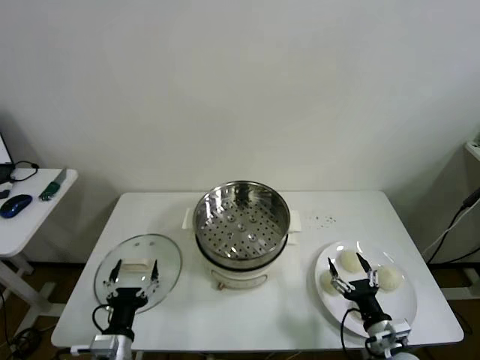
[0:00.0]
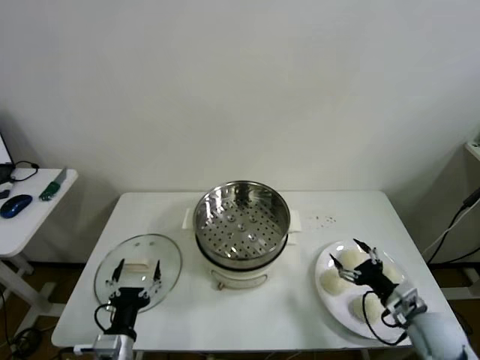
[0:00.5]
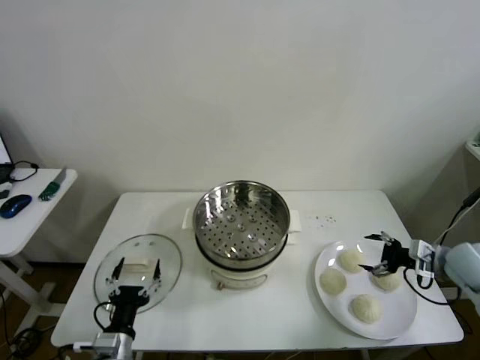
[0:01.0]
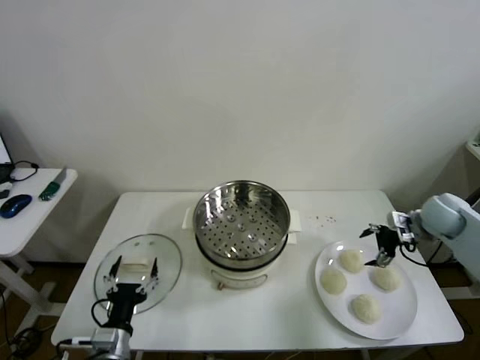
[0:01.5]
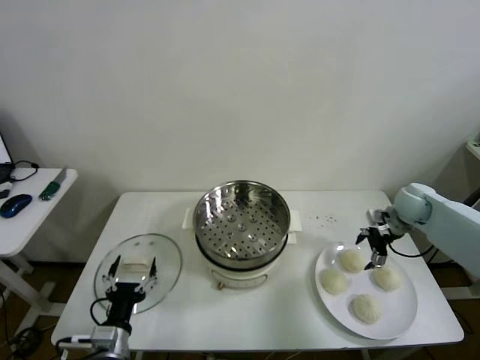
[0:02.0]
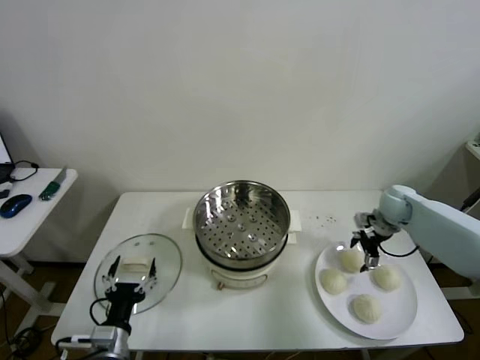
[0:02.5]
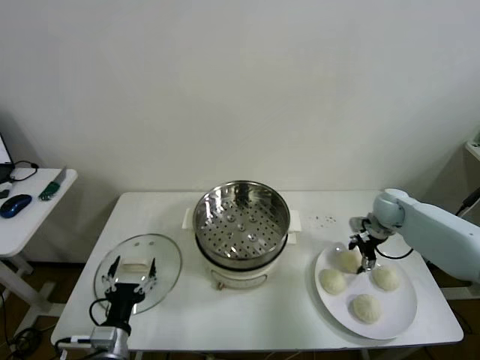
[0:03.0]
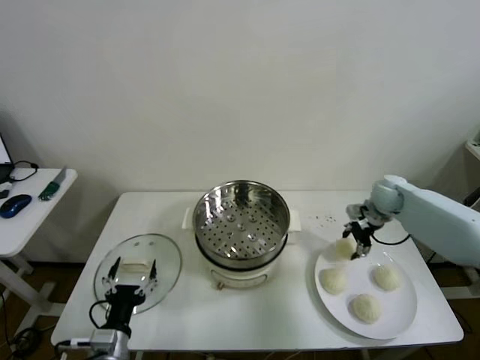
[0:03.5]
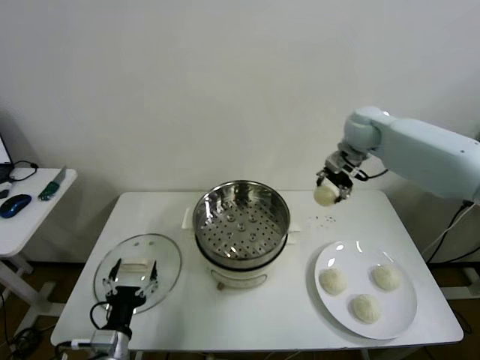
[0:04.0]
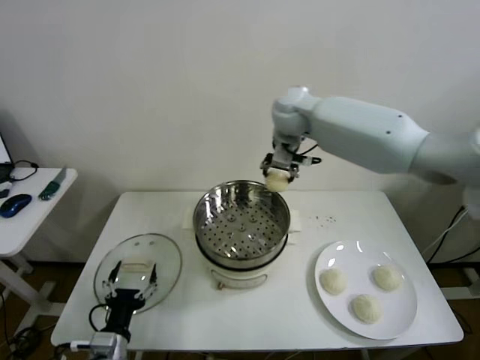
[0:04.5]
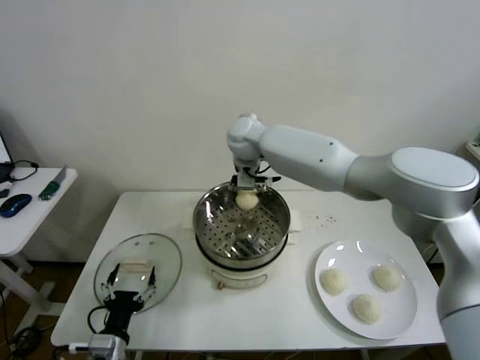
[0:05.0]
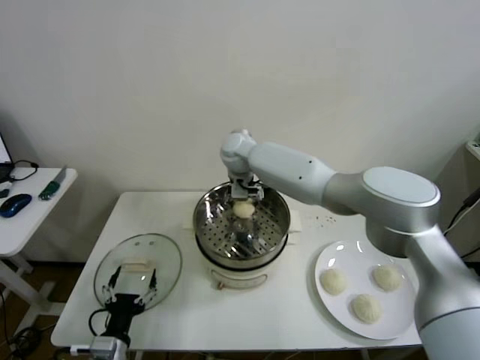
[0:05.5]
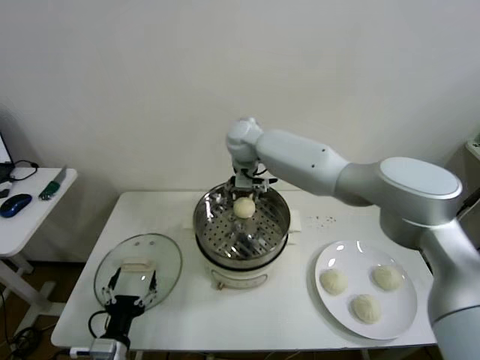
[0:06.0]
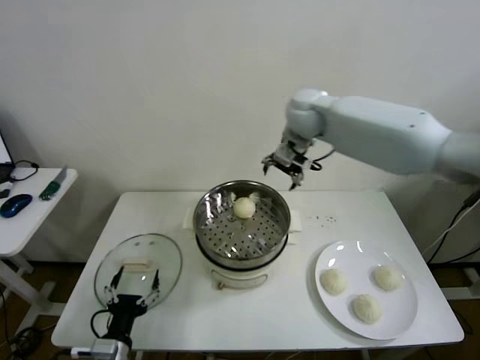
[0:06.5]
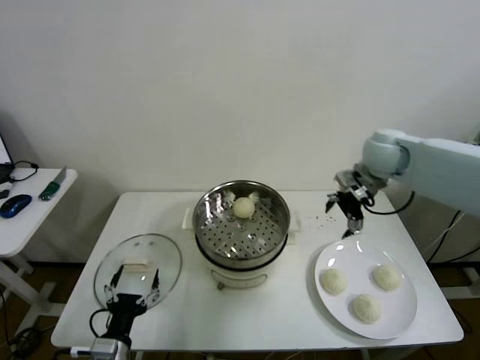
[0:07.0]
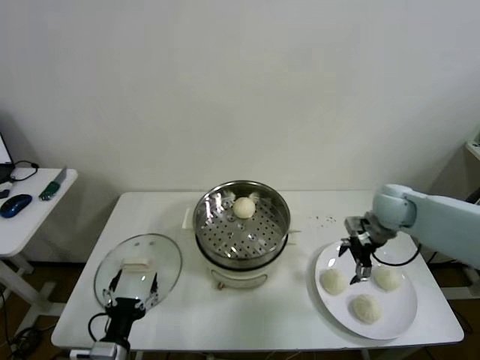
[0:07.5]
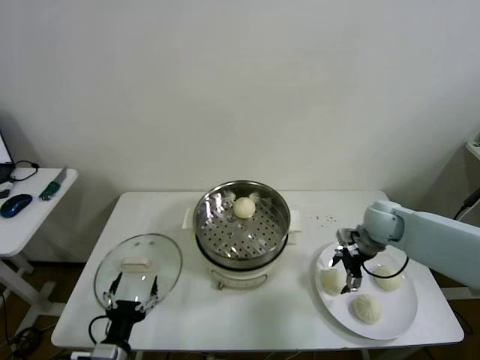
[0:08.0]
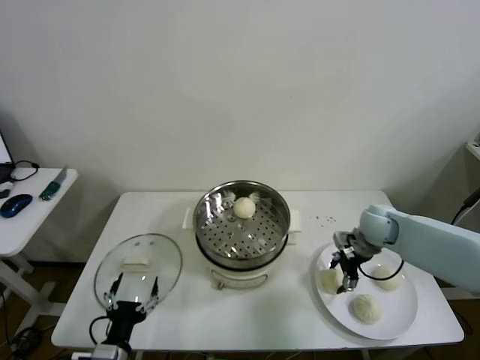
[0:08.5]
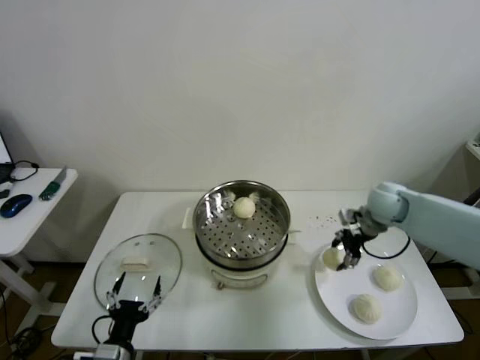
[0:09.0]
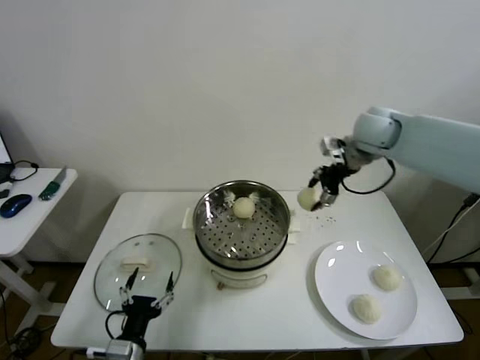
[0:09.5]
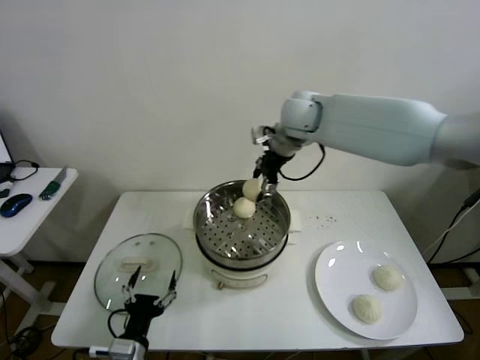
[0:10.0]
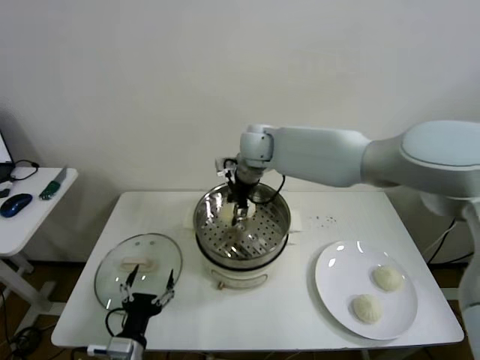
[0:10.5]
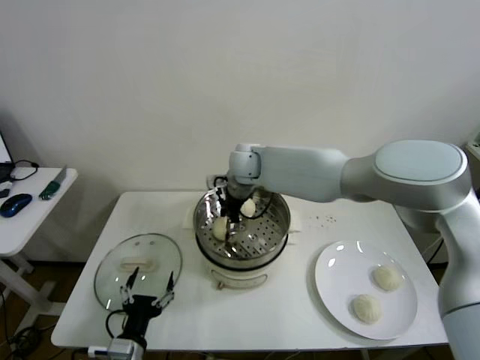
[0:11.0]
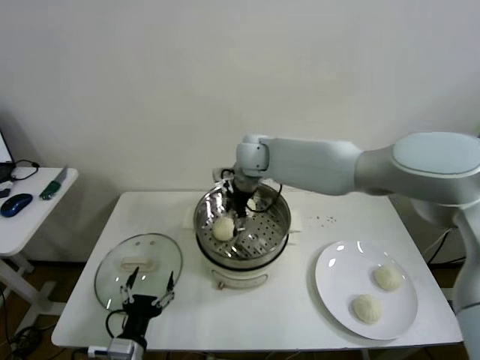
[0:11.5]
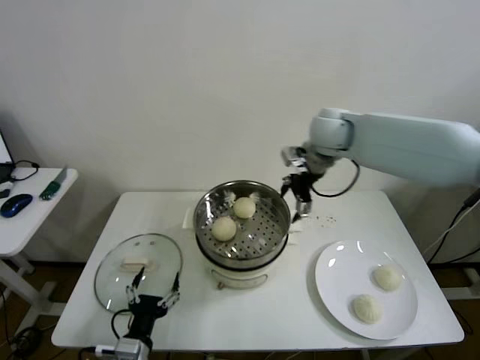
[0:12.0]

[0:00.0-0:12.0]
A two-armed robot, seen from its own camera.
Step, 0:00.0 to 0:03.0: Grasp the baozi in the plate with right gripper.
Step, 0:03.5 to 0:05.5: Place the baozi on the steamer with right gripper.
Step, 0:06.0 to 0:08.5: Grasp the baozi in the plate with right gripper.
Step, 0:09.0 to 0:11.0: Place the baozi on the steamer with right gripper.
0:02.0 to 0:04.0: The right gripper travels upward, to the left and forward by roughly 25 cm, and closes.
0:04.0 to 0:06.0: The right gripper goes roughly 25 cm to the left, and opens.
0:06.0 to 0:08.0: The right gripper moves to the right and downward, roughly 35 cm.
0:08.0 to 0:10.0: The right gripper travels upward, to the left and forward by roughly 35 cm, and closes its fingers.
0:10.0 to 0:12.0: The right gripper travels to the left and back again, about 10 cm each way, and opens up.

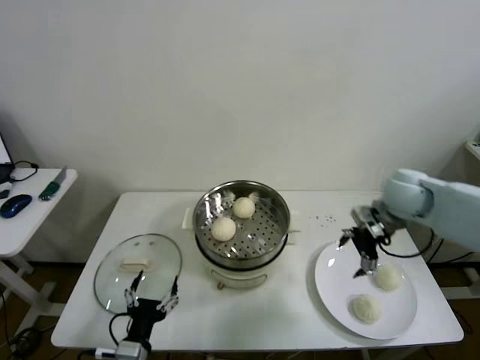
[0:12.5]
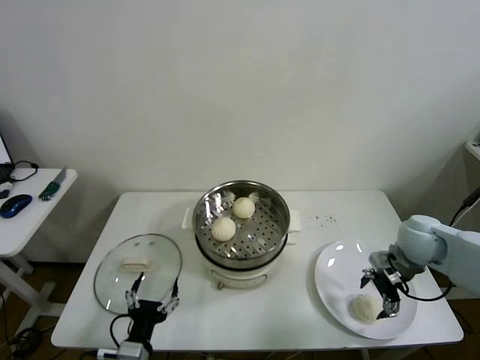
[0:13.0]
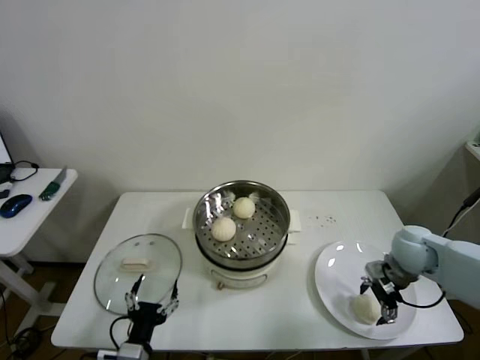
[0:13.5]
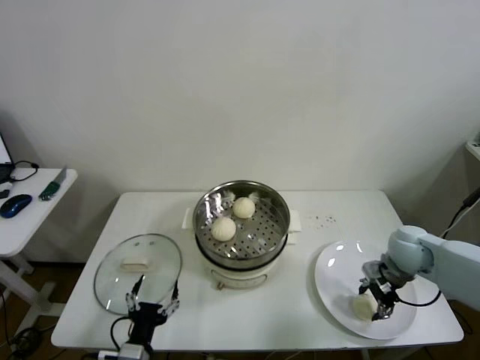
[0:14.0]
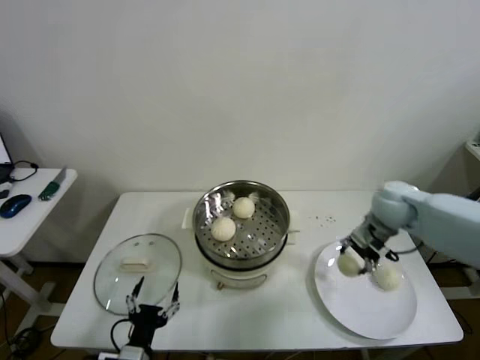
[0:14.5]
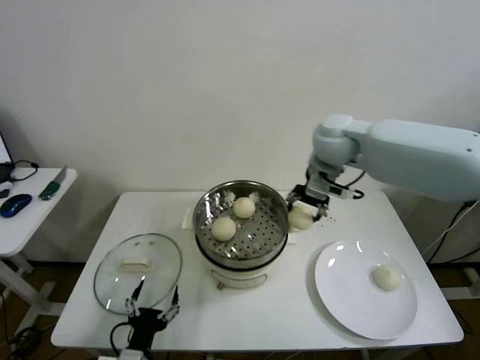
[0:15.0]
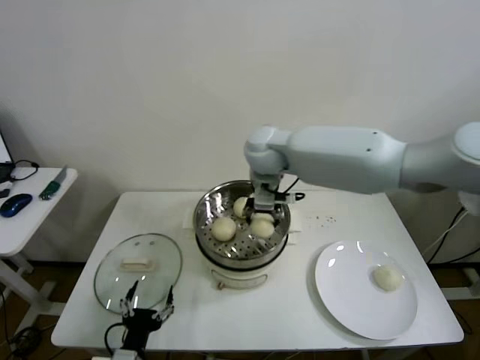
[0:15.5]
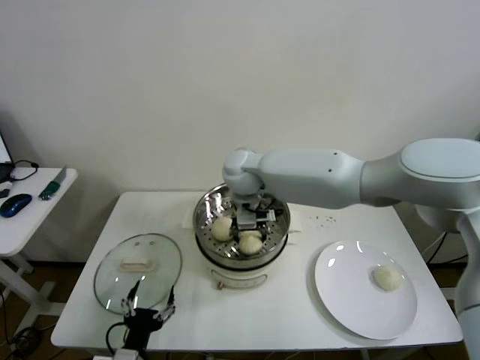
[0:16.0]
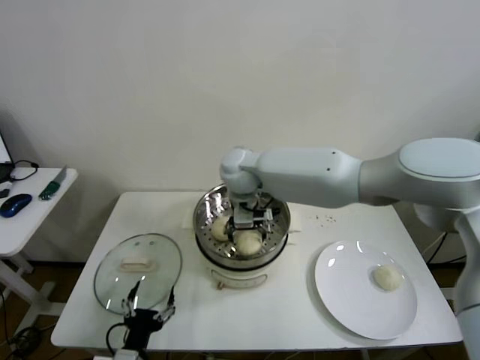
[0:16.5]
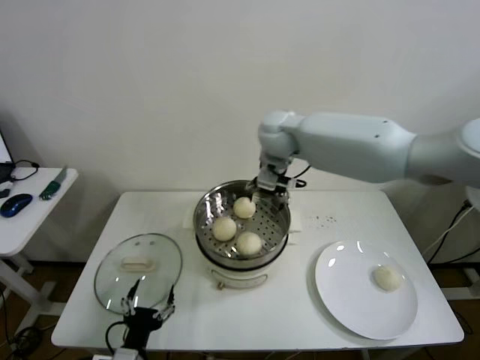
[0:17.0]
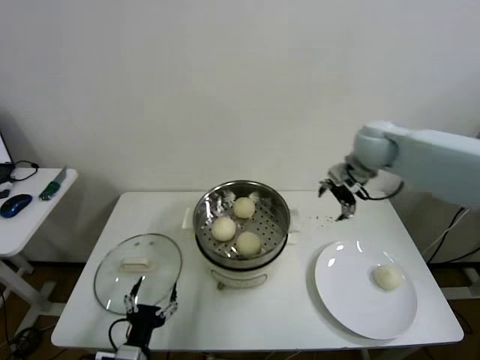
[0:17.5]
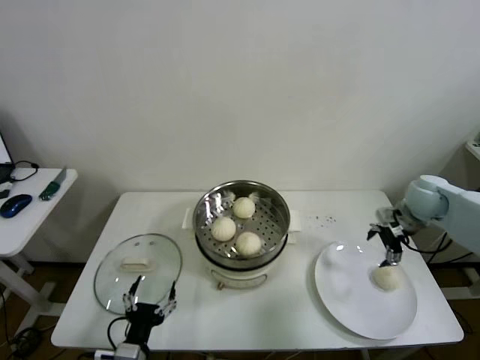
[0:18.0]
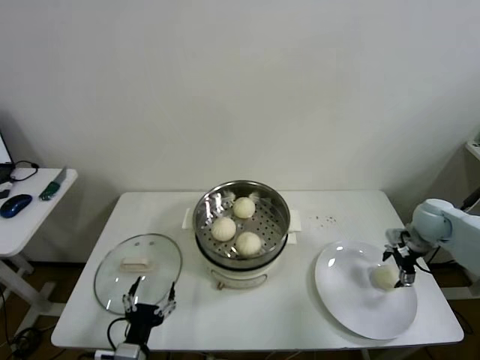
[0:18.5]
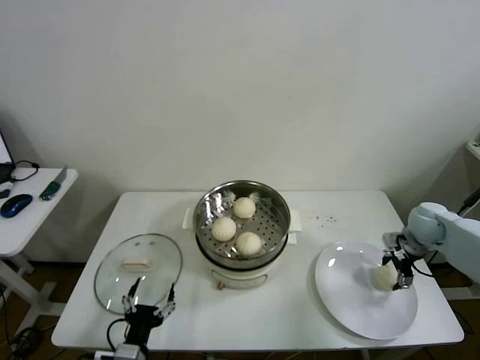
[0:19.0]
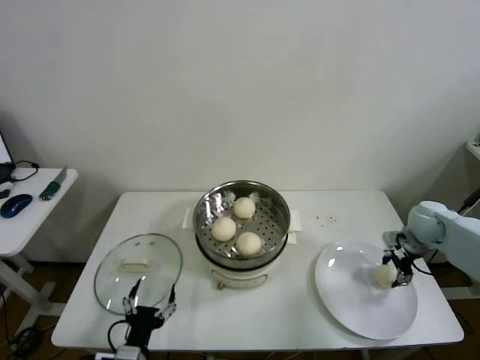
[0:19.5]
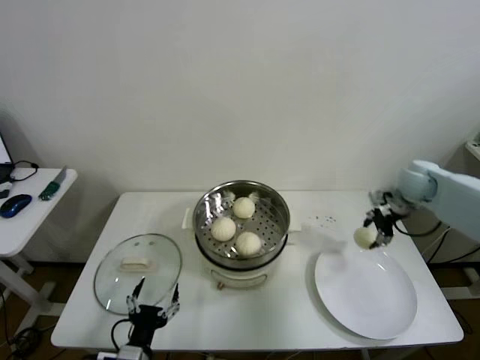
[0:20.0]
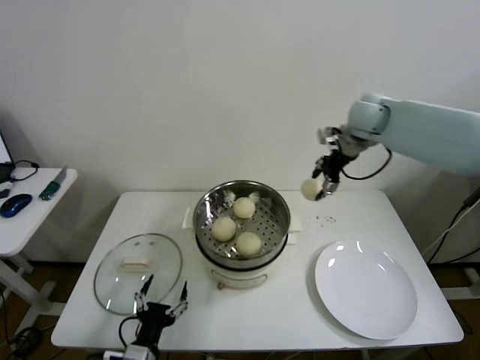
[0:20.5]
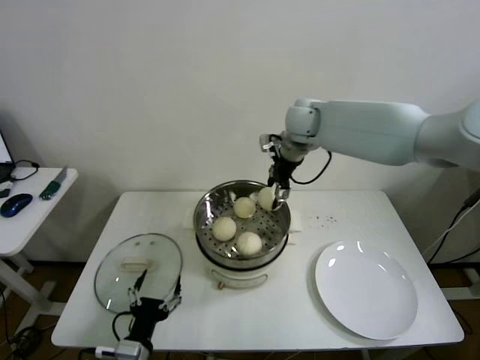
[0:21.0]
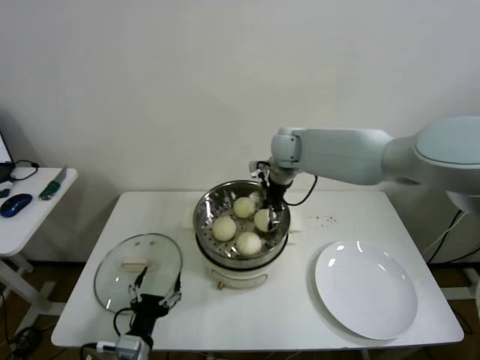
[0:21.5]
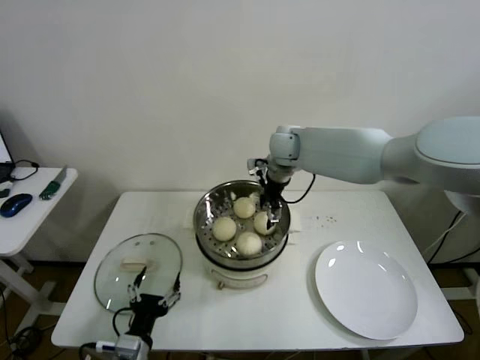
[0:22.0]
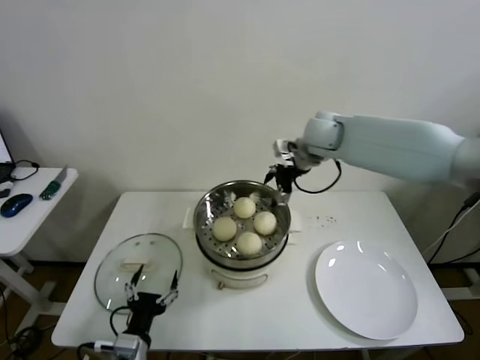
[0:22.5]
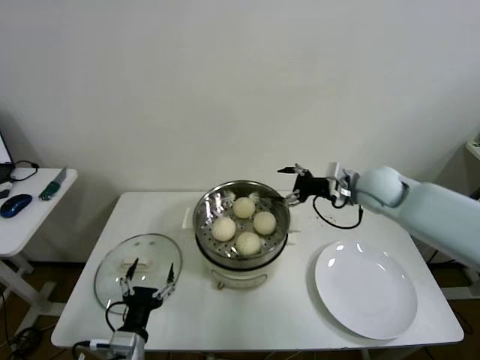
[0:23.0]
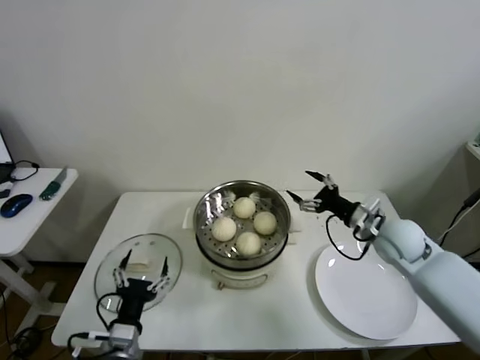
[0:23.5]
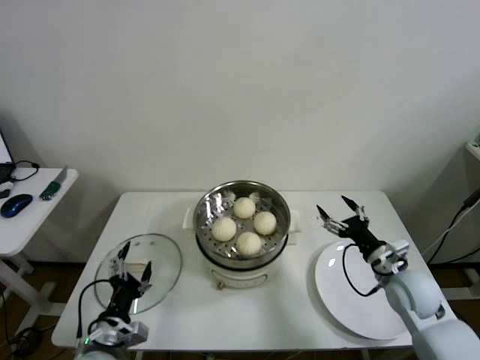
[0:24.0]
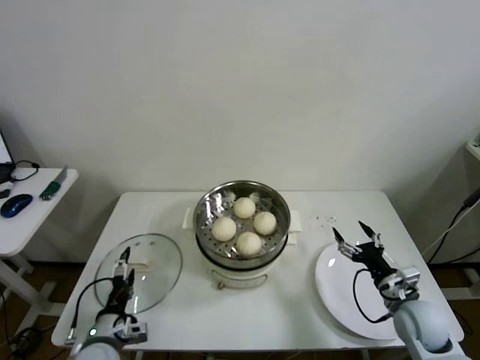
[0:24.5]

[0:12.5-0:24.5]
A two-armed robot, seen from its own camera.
Step, 0:14.0 to 0:16.0: Place the baozi on the steamer with right gripper.
Step, 0:16.5 to 0:18.5: Grasp the baozi in the plate with right gripper.
Step, 0:19.0 to 0:21.5: Place the baozi on the steamer with right gripper.
0:12.5 to 0:14.5: The right gripper heads downward, covering about 5 cm, and closes its fingers.
0:14.5 to 0:16.5: The right gripper is displaced to the left by about 35 cm, and opens.
0:16.5 to 0:18.5: The right gripper heads to the right, covering some 50 cm.
0:18.5 to 0:20.5: The right gripper is displaced upward, to the left and forward by approximately 30 cm, and closes.
0:20.5 to 0:22.5: The right gripper is displaced to the left by some 10 cm, and opens its fingers.
0:22.5 to 0:24.5: The left gripper heads to the left and forward, covering about 10 cm; the right gripper shifts approximately 50 cm backward, downward and to the right.

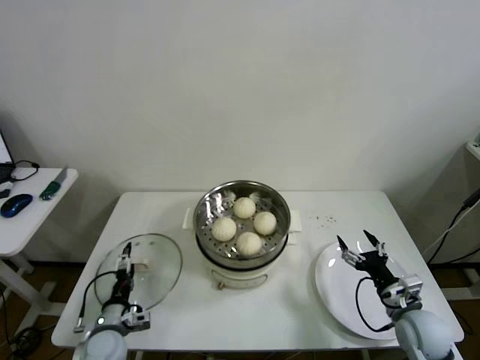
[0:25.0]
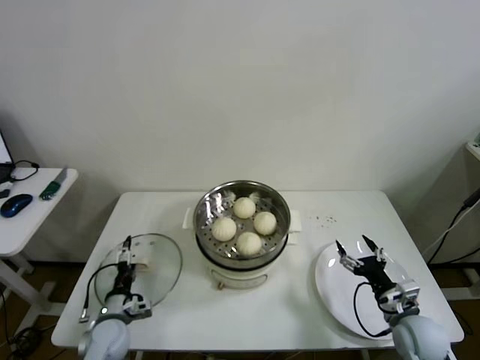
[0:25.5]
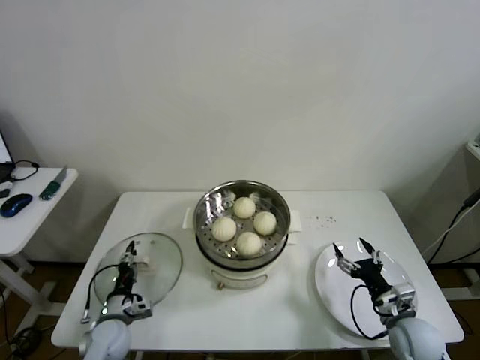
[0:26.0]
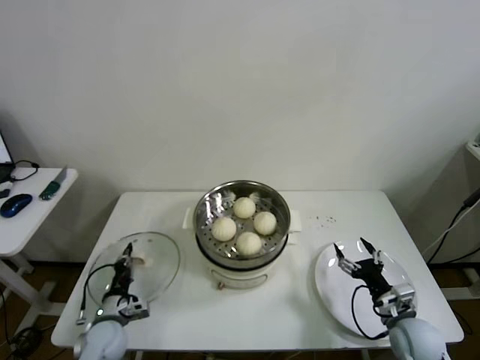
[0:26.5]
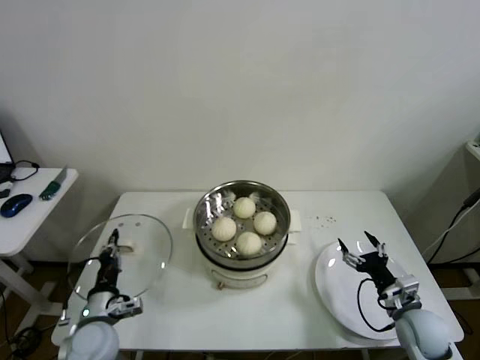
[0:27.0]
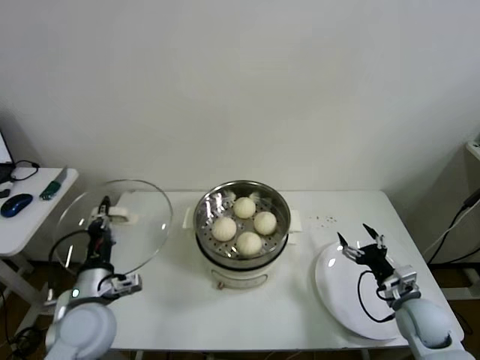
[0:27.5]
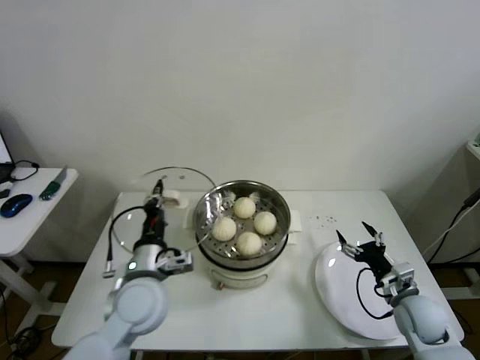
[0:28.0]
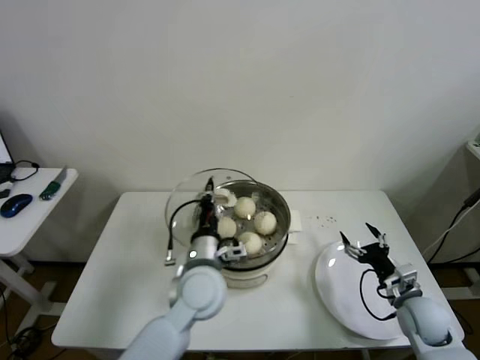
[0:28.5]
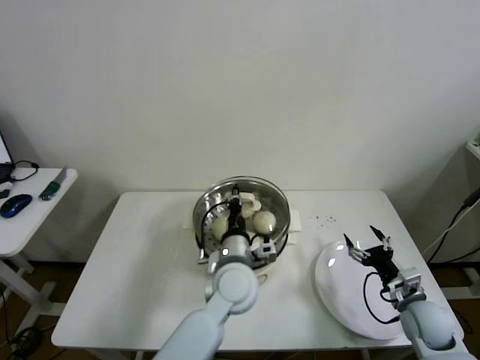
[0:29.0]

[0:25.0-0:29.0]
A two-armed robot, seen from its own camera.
0:25.0 to 0:27.0: The left gripper closes.
0:27.0 to 0:29.0: The left gripper heads to the right, covering approximately 30 cm.
